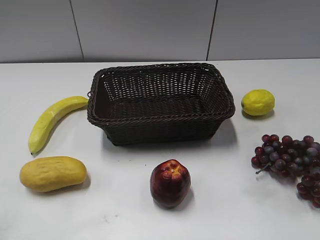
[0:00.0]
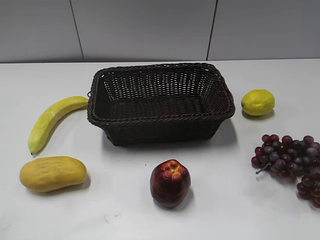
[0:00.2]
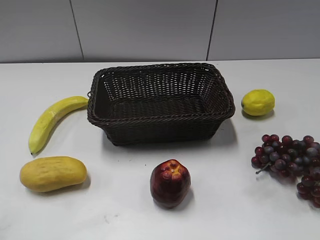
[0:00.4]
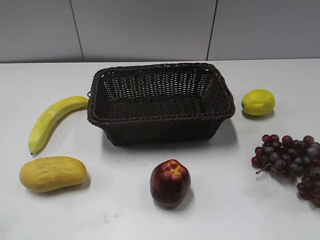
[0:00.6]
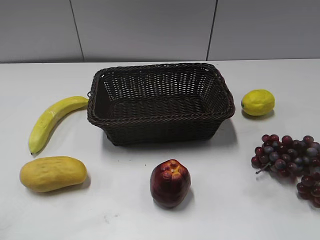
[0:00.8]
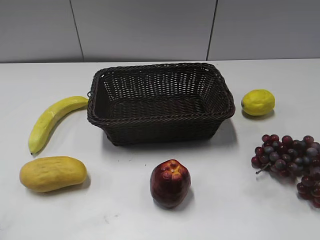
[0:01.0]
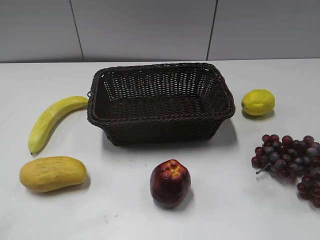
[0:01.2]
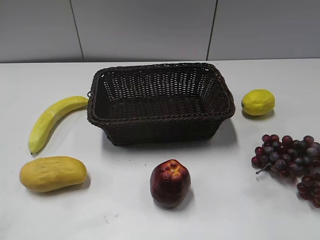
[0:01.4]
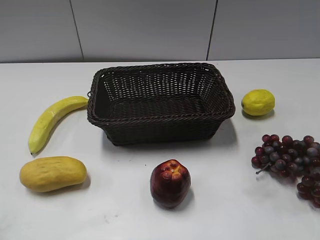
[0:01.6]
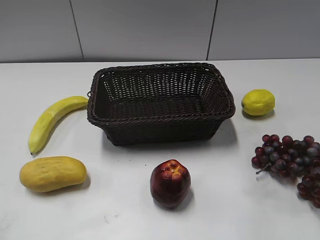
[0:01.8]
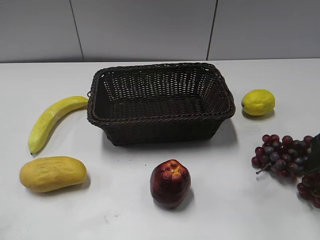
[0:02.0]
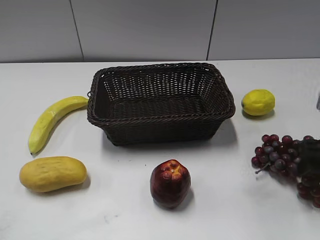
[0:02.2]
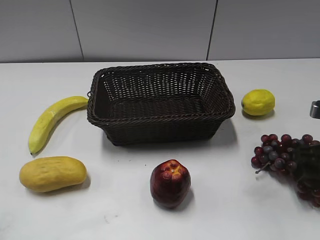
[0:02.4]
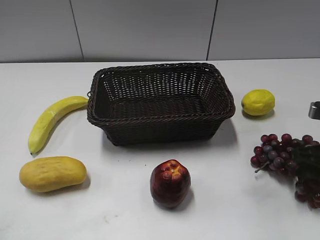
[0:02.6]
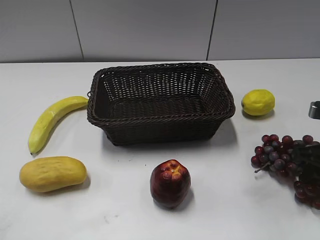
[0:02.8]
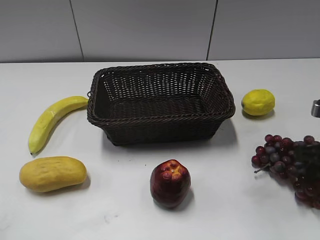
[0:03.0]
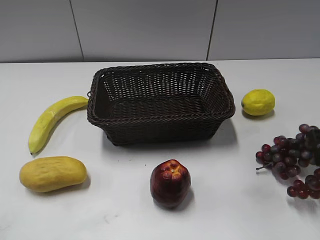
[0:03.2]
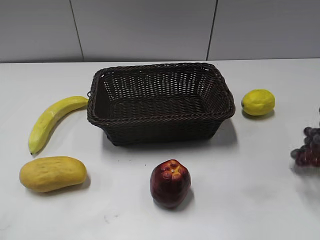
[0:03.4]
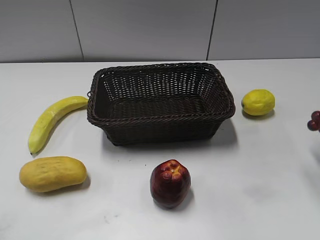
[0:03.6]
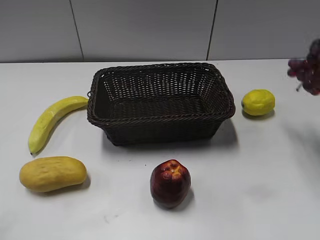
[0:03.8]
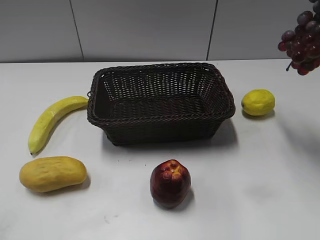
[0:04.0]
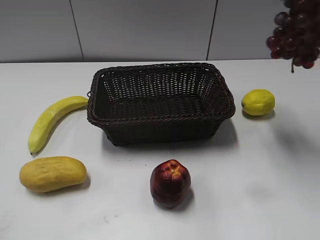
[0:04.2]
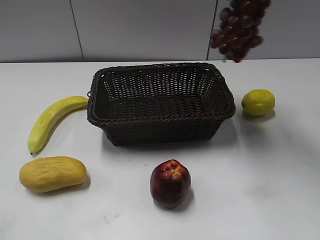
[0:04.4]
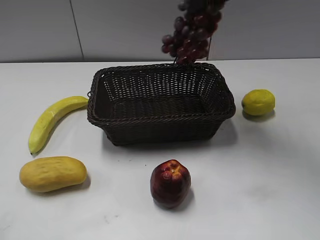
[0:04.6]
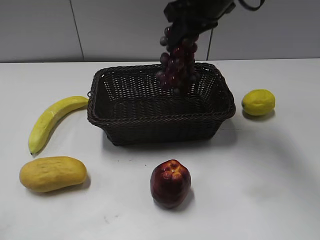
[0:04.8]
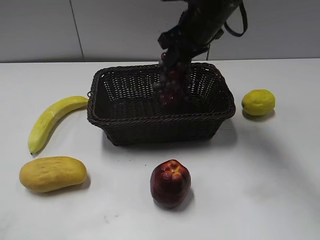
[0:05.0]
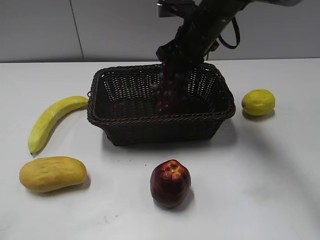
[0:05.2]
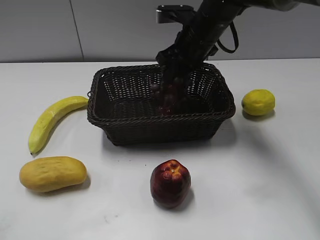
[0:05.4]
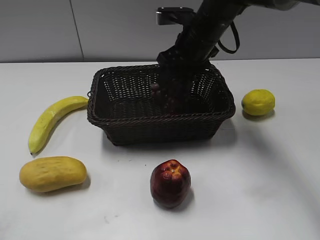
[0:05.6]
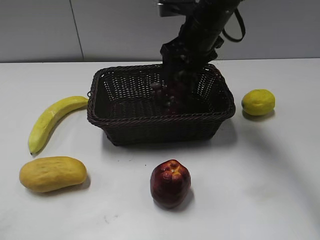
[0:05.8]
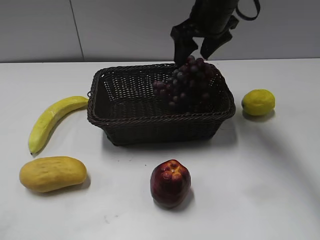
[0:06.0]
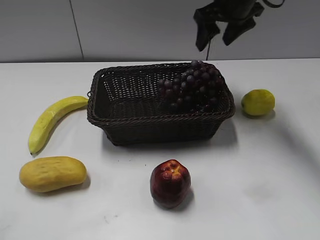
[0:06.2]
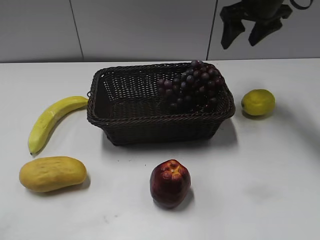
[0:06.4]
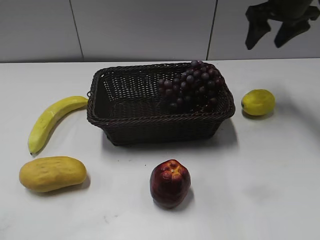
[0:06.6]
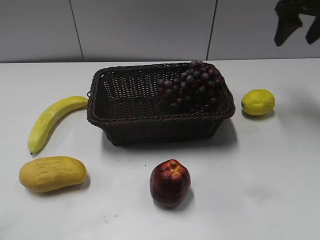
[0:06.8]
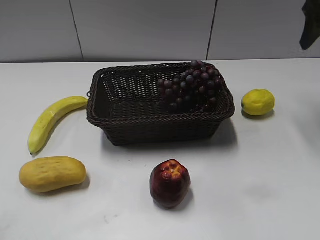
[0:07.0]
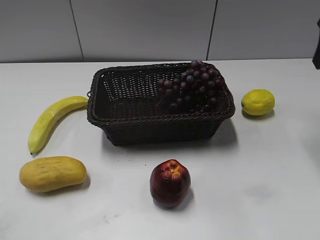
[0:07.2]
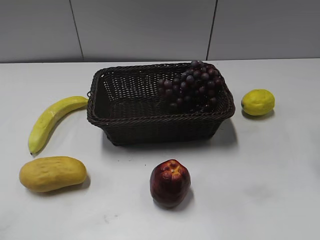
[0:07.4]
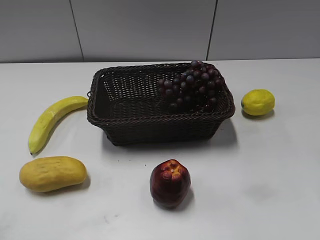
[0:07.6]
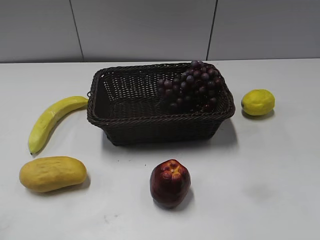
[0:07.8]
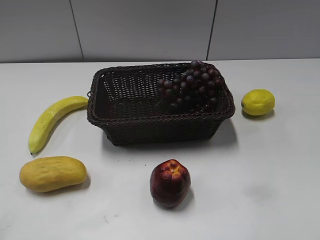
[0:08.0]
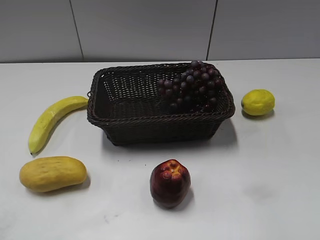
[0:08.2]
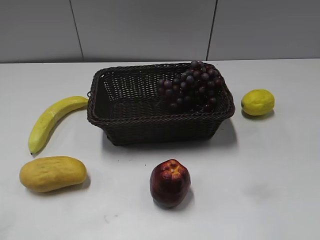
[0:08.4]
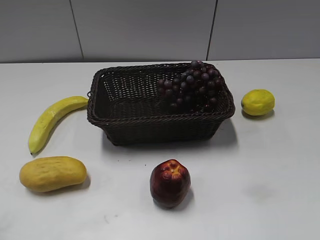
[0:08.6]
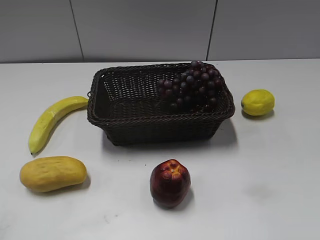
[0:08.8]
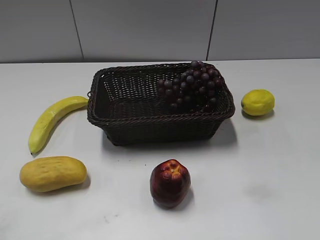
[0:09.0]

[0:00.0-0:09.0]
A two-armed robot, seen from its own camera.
Step, 0:03.0 to 0:05.6: Place the grape in the basket with right gripper.
0:01.6 to 0:03.0: The right gripper goes about 15 cm downward and forward, and closes.
0:03.0 to 0:04.4: The right gripper is displaced upward, to the left and forward by about 30 cm.
0:04.4 to 0:06.0: The right gripper goes about 15 cm downward, to the left and forward, and opens its fingers.
0:06.0 to 0:07.6: The right gripper travels to the right and backward by about 30 cm.
